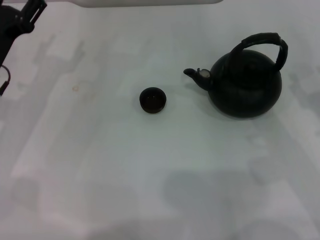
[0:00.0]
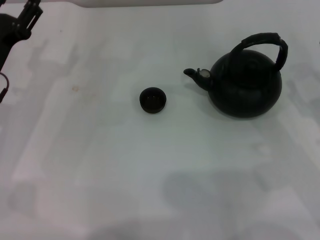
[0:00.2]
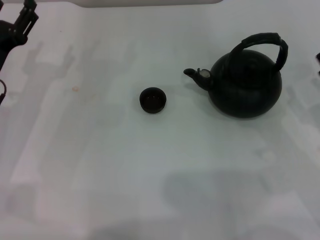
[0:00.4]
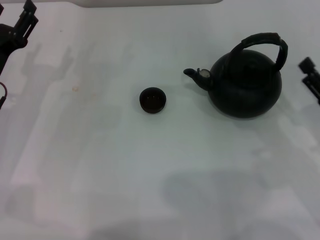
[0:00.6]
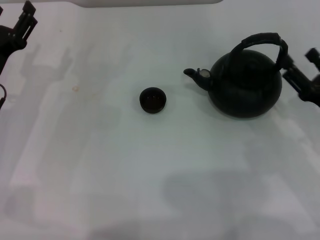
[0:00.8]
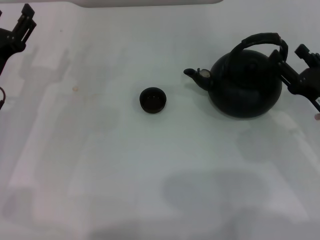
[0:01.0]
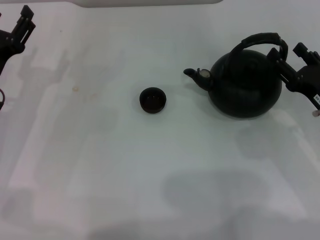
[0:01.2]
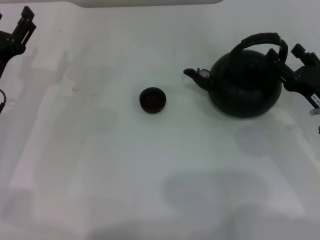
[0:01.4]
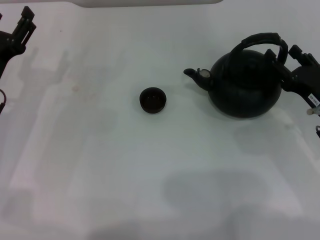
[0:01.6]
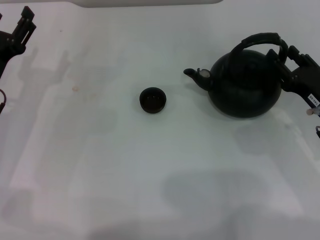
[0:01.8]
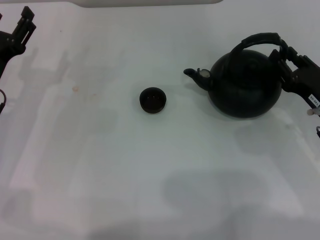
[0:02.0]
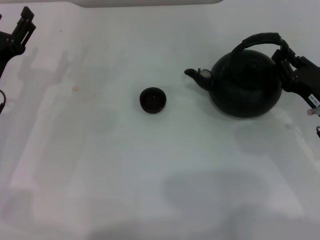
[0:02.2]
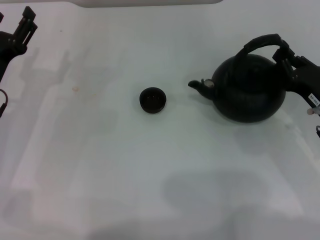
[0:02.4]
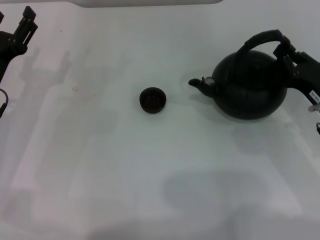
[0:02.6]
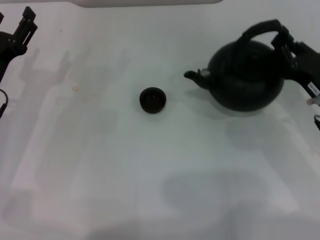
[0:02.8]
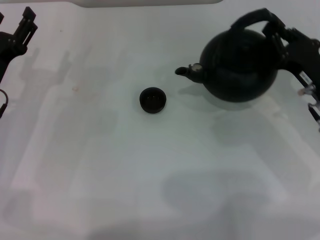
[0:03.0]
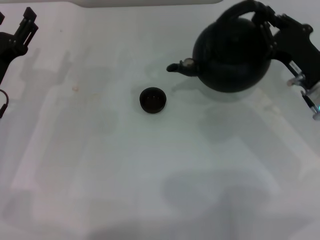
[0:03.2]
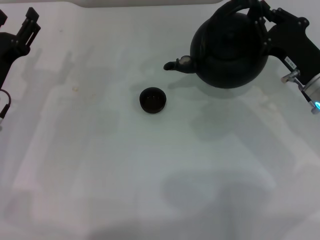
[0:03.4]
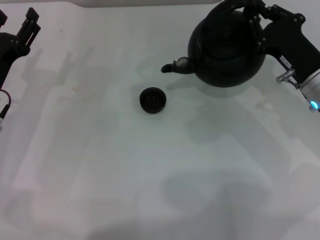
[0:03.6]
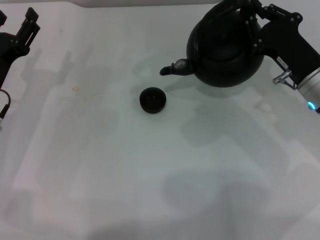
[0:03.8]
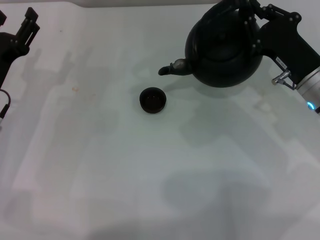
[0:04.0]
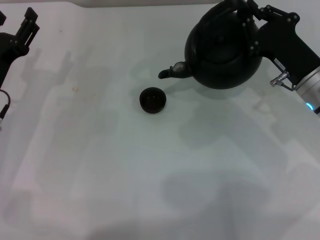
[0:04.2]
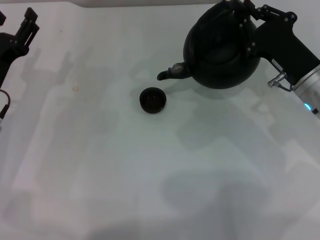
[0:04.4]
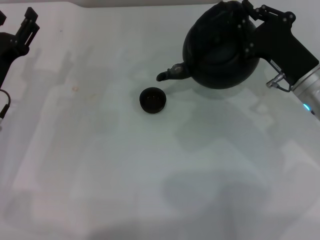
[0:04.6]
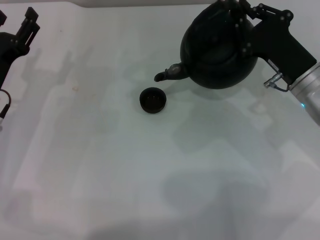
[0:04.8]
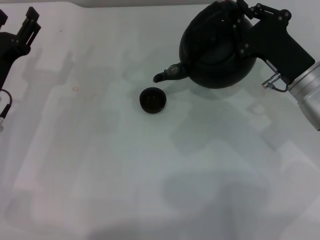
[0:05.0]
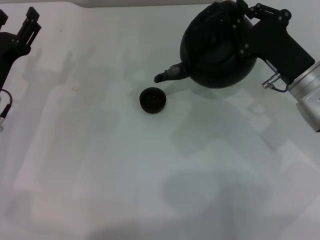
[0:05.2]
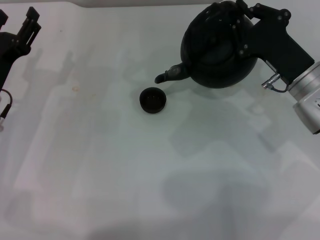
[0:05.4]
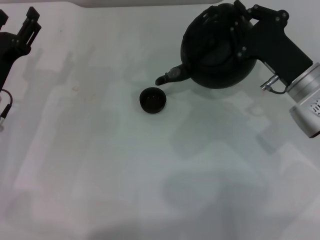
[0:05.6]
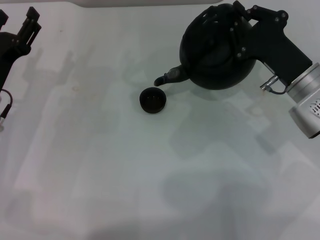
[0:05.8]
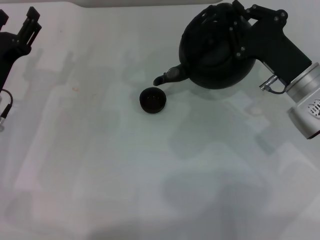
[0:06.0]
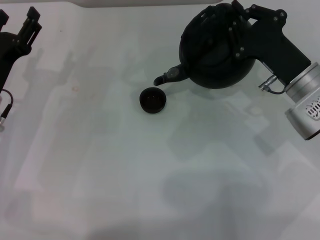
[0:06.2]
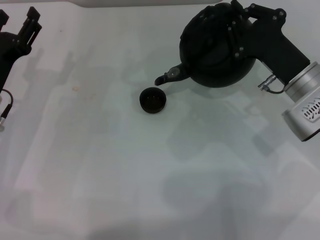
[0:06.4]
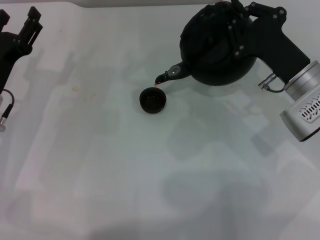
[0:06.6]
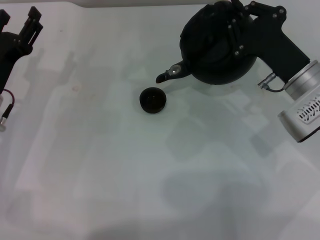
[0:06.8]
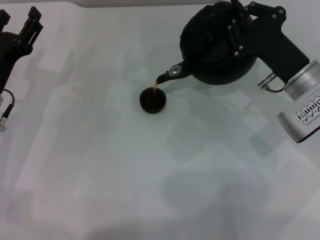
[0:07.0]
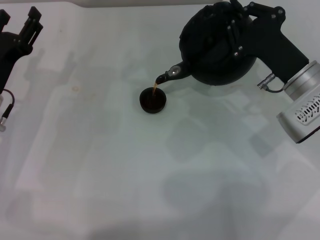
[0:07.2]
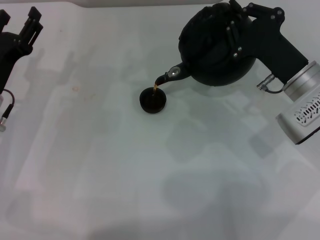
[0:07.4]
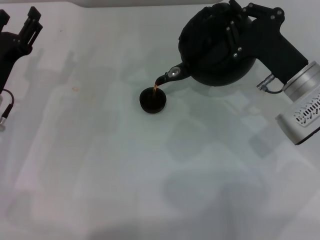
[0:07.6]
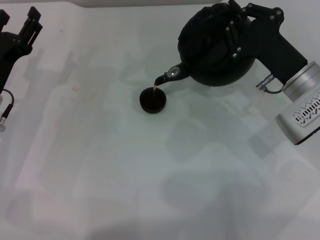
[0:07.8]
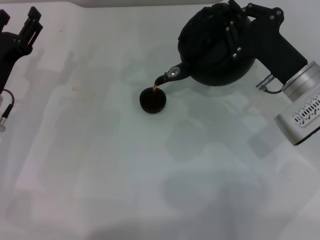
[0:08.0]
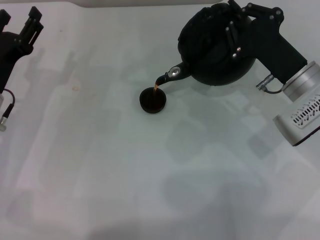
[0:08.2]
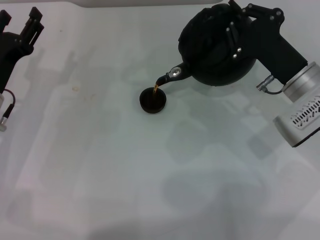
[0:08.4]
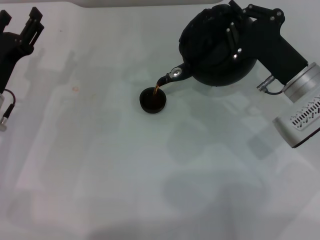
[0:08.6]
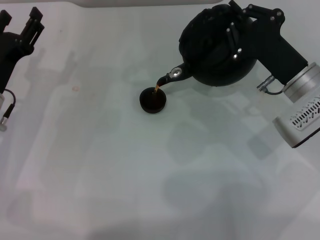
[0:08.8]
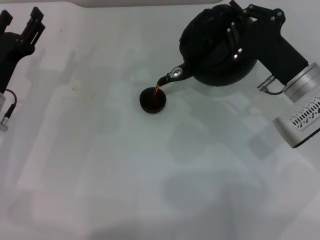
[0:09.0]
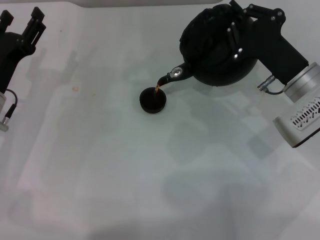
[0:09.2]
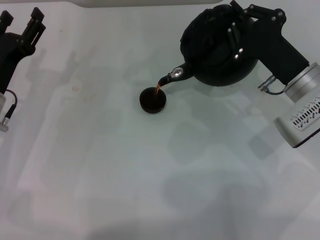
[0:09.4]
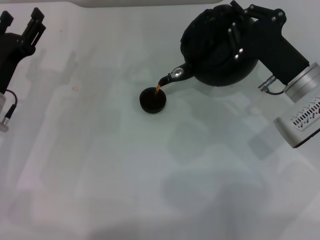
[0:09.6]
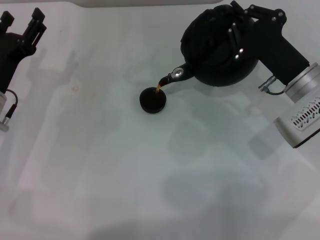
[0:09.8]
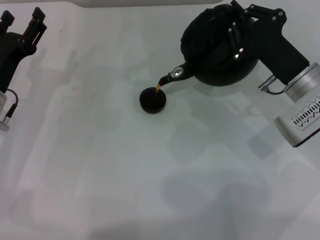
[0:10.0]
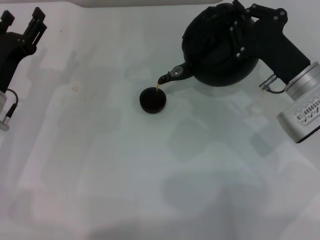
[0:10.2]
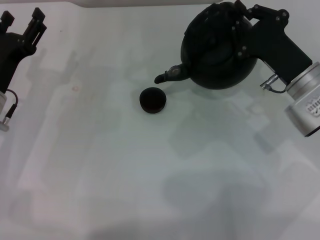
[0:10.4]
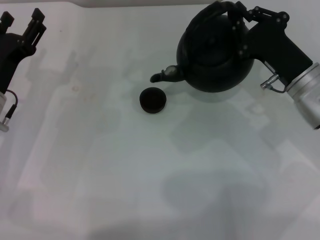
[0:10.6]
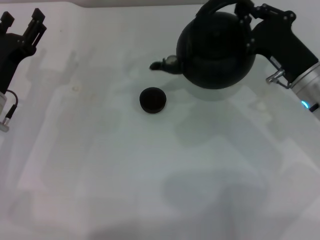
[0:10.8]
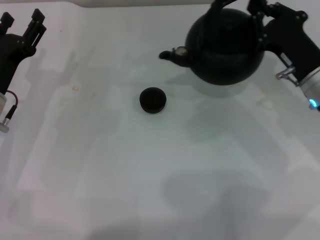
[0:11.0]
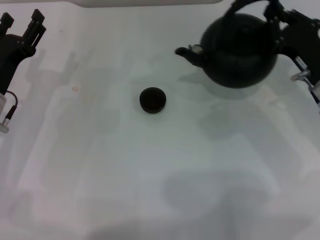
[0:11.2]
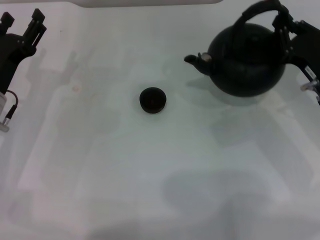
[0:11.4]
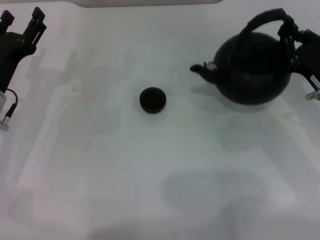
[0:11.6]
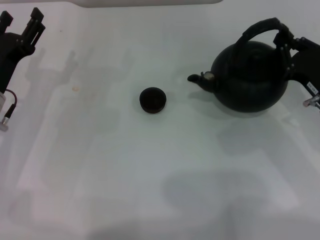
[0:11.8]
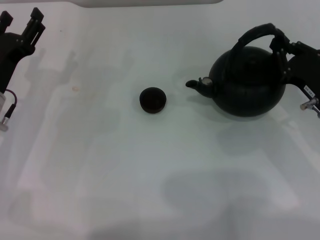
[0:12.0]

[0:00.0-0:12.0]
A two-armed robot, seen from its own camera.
Task of the whole recording: Grasp the handle of the teapot with one hand and pour tea into the teacup.
Step, 0:00.0 to 0:02.8: Pick up the teapot with the right gripper.
Step, 0:03.2 to 0:10.6: Pour tea into the teacup with the right gripper.
0:00.0 to 0:01.6: The right gripper moves approximately 5 cm.
0:01.6 to 0:03.0: The right gripper closes its fingers.
0:04.4 to 0:06.0: The grippers stay close to where they were, moving slightly.
0:06.0 to 0:07.6: The grippers move only a little.
0:07.6 to 0:09.0: Both grippers stay about where they are.
0:09.0 to 0:10.4: There are only small adjustments of the grippers.
0:10.4 to 0:12.0: The right gripper goes about 5 cm to the right.

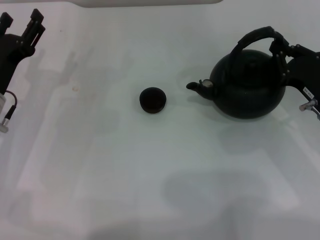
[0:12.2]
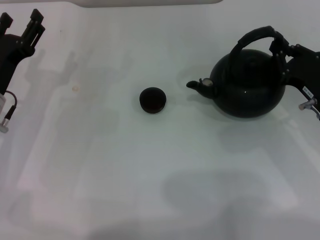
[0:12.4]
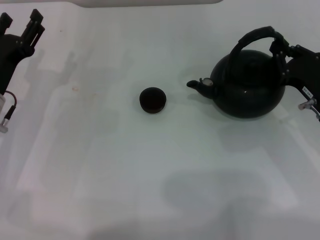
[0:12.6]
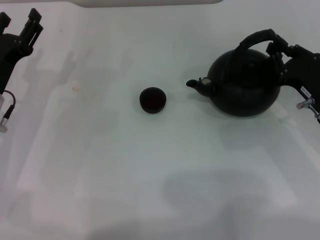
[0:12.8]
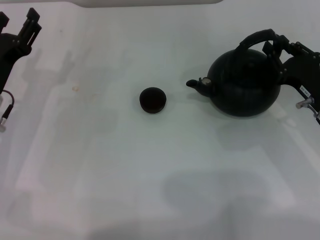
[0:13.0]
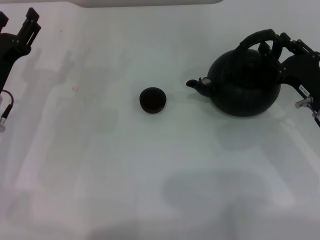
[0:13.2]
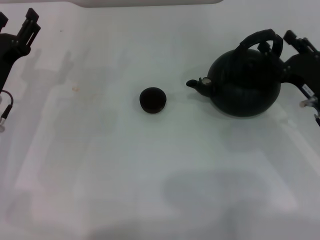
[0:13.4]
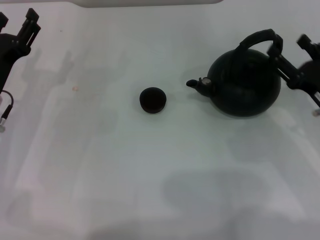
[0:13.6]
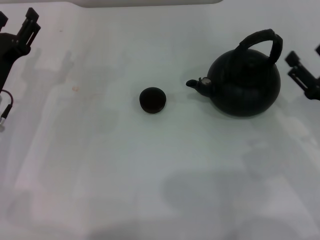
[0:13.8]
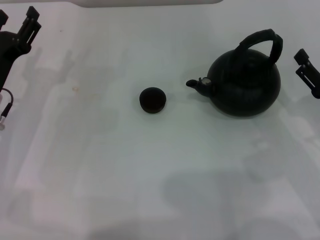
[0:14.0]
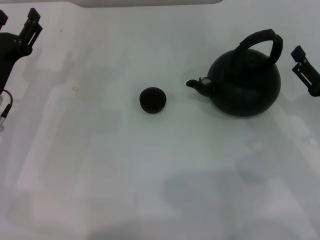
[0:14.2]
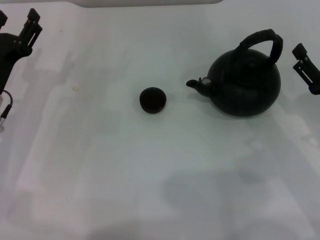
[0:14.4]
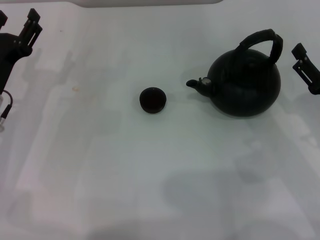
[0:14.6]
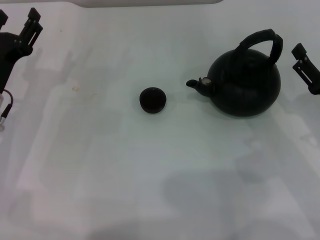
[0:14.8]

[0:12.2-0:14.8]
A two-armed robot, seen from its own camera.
Task of the whole recording: Grasp the handle of the teapot with one hand and pour tea into the teacup.
0:12.2 to 0:13.4: The right gripper opens up.
0:13.4 to 0:14.8: The right gripper moves roughly 5 cm, and opens its fingers.
